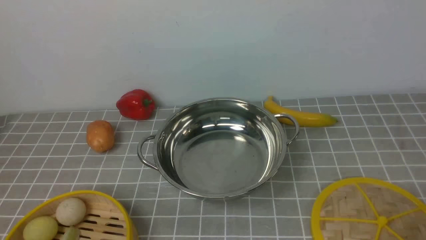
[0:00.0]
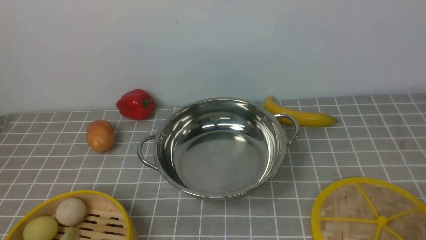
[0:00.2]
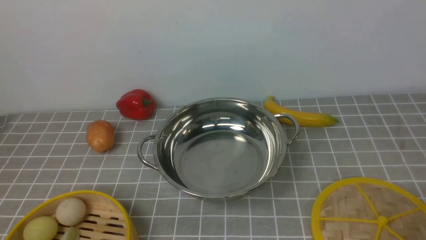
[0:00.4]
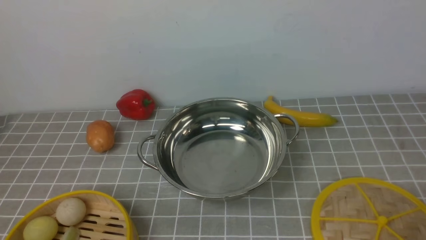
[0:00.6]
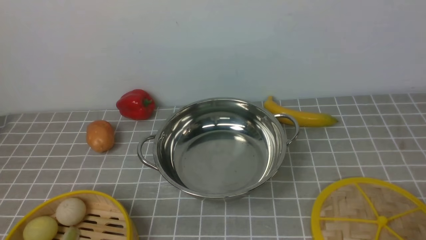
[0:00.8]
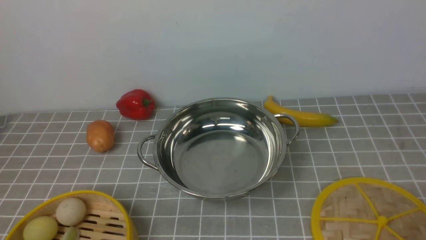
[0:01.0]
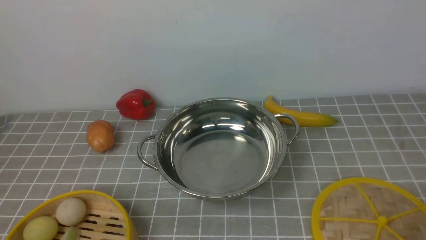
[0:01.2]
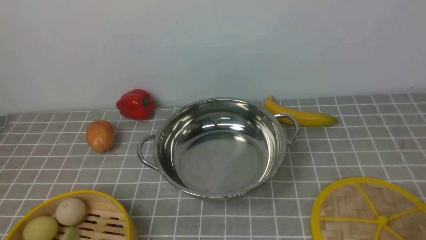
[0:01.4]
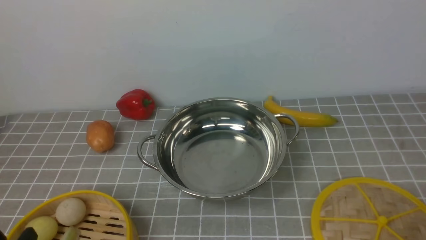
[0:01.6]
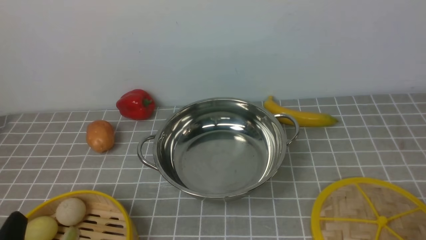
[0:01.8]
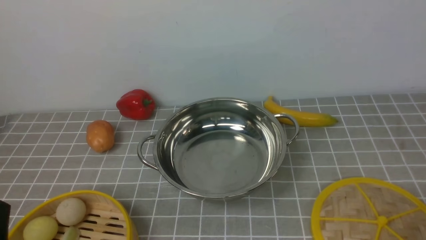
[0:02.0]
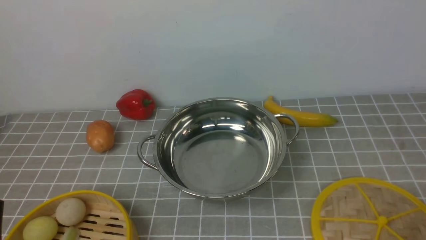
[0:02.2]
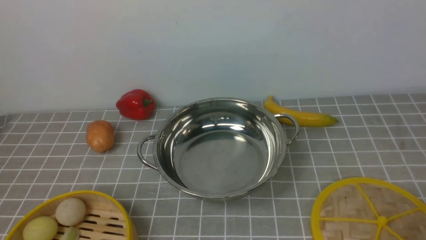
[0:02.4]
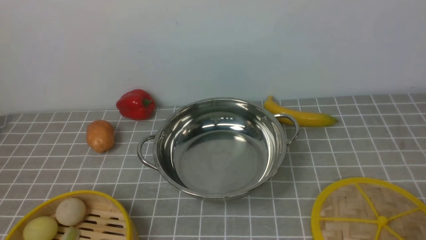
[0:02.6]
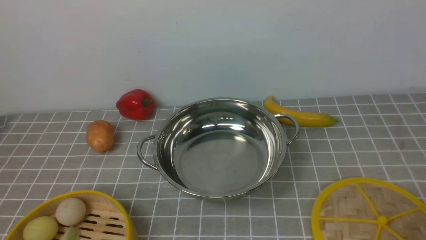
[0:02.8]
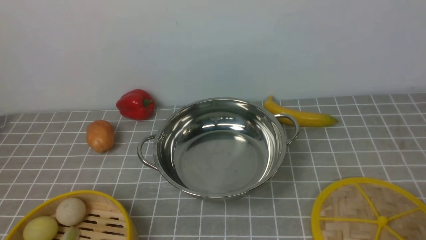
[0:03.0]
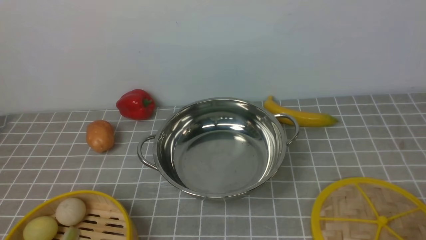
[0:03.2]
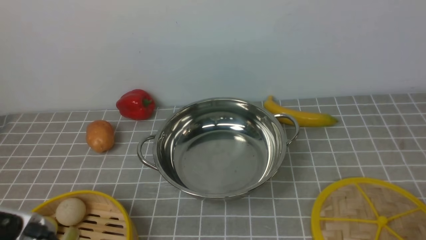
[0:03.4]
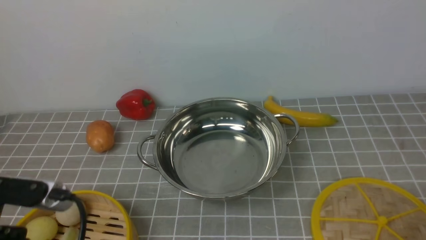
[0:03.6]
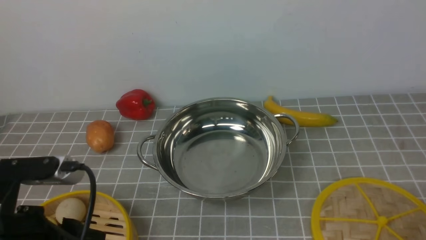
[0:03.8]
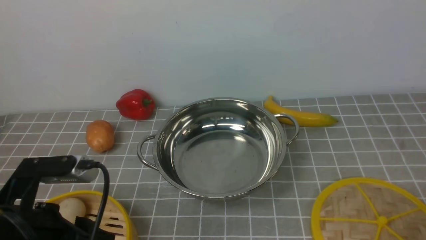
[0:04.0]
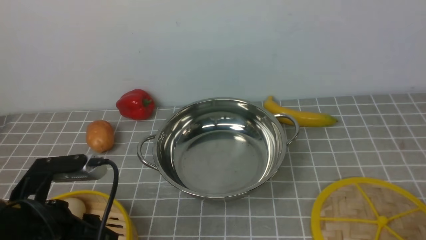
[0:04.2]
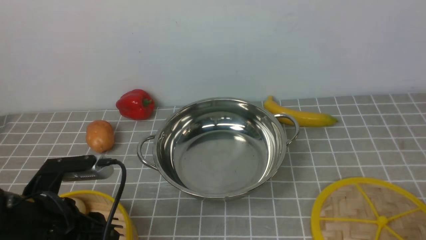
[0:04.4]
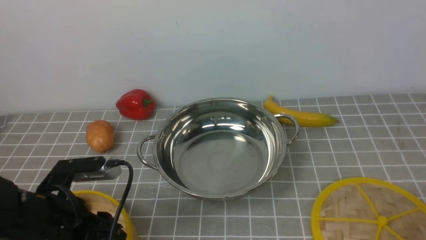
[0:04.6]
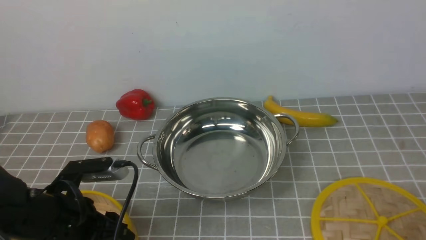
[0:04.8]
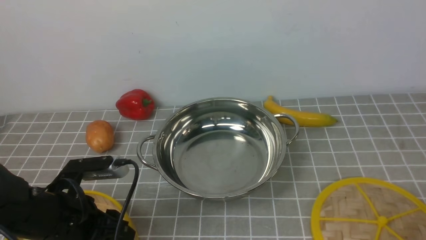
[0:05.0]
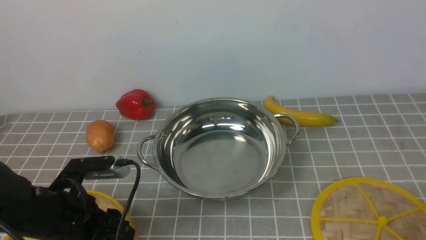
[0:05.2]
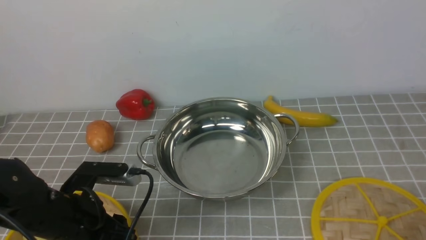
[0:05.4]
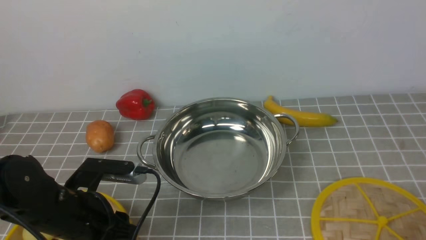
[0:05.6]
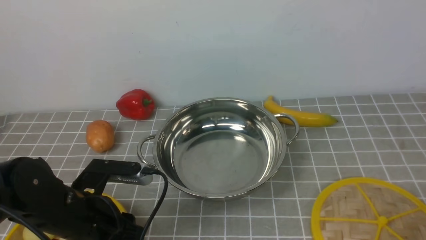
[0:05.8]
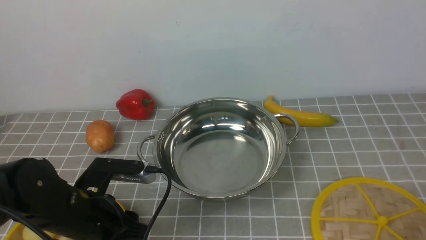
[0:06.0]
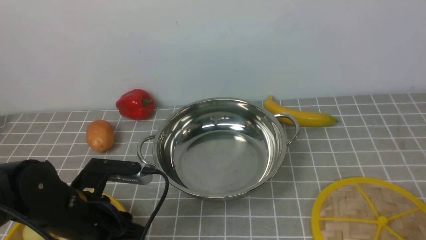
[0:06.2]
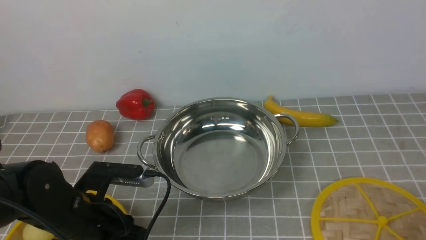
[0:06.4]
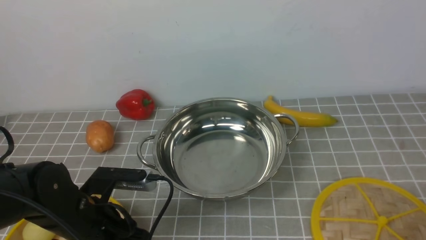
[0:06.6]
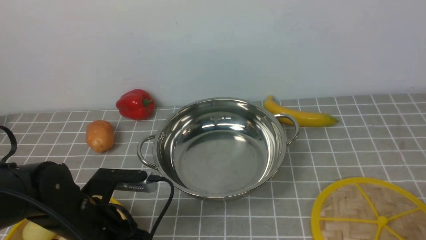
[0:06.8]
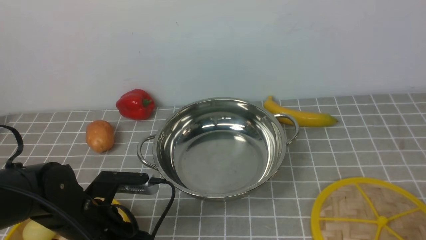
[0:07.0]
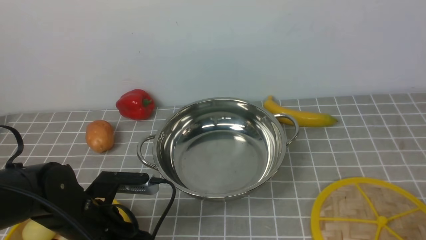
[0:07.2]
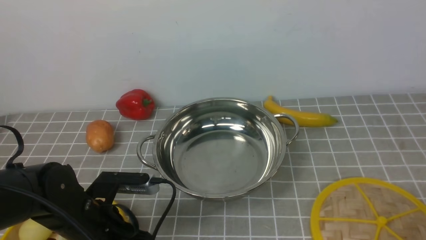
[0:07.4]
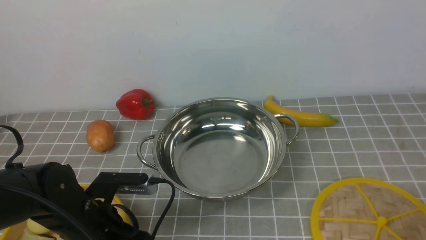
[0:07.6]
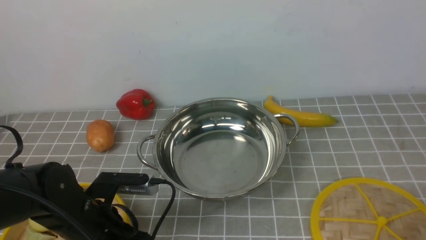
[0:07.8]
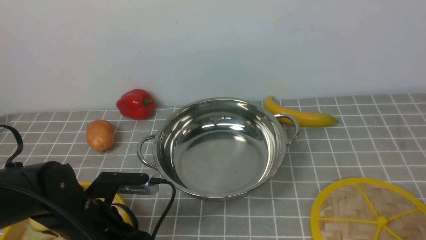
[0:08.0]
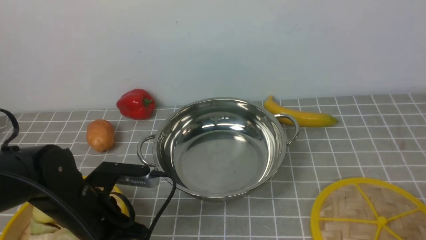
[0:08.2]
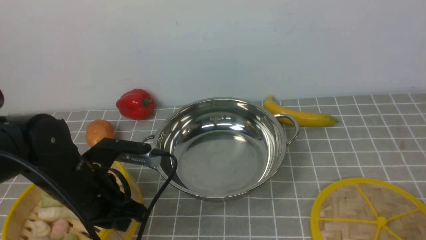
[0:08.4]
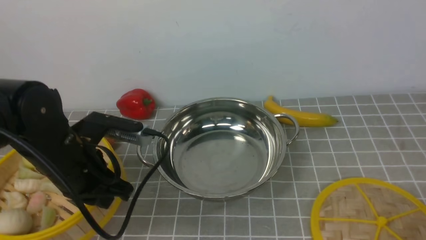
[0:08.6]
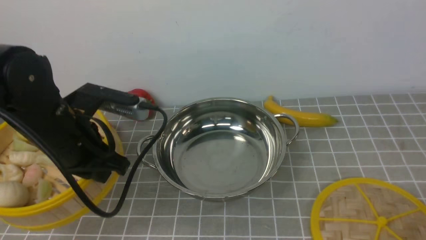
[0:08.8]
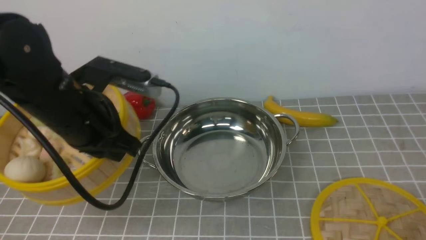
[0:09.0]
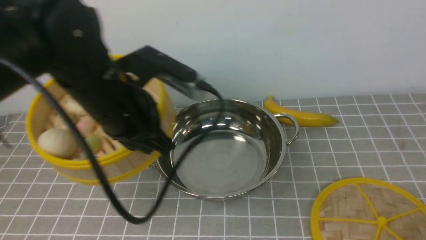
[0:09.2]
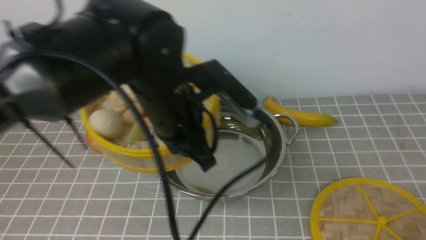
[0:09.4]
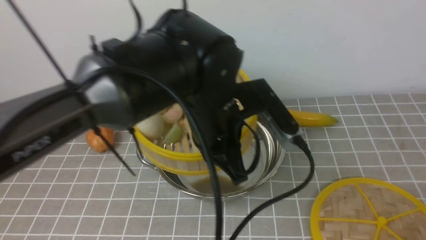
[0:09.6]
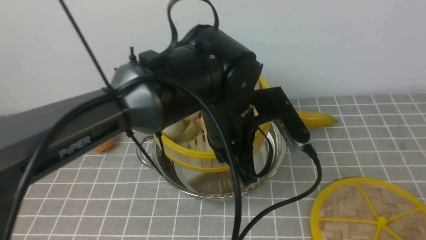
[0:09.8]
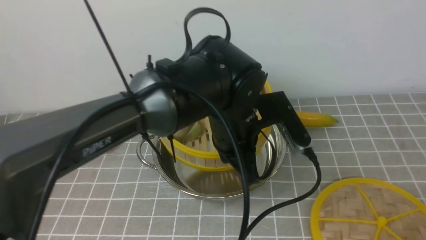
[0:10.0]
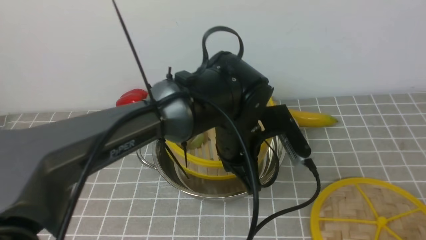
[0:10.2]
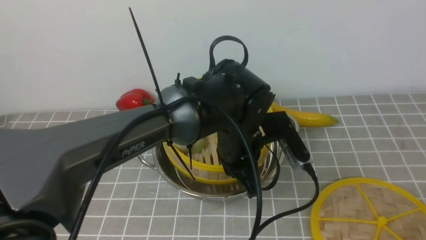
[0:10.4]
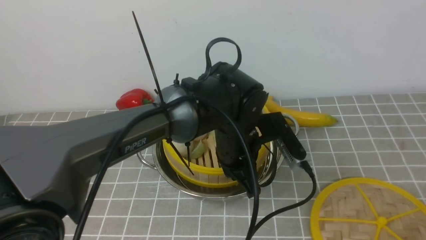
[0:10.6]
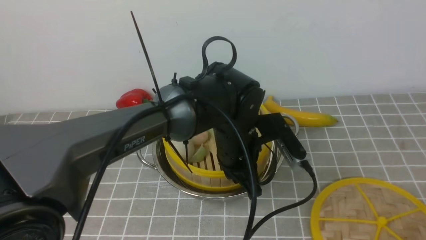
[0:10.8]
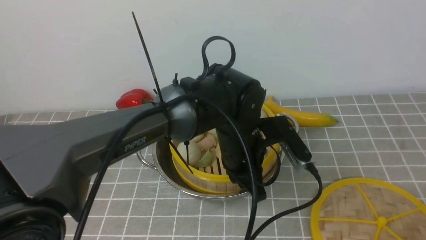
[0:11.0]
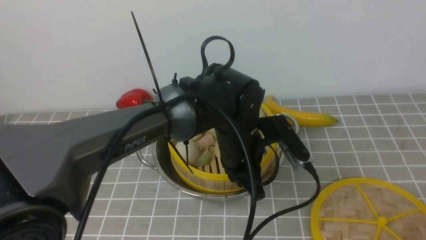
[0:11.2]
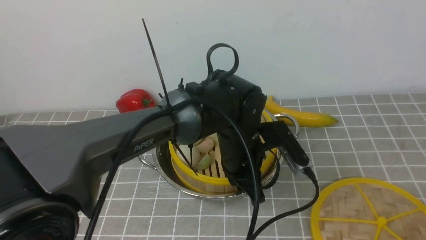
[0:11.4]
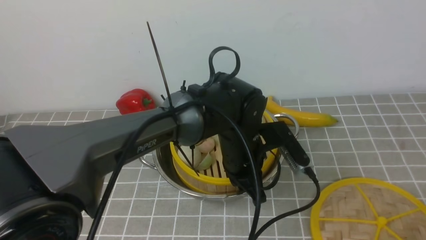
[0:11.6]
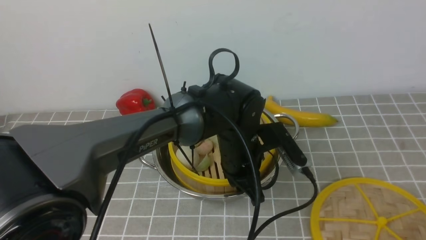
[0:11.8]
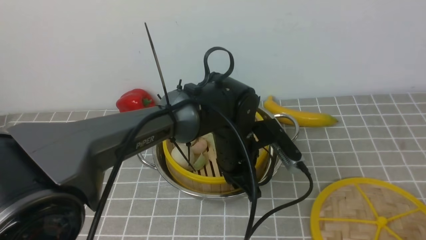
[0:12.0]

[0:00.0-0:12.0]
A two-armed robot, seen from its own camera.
Task of the whole recording: place the steamer in the pot on the grey tablecloth, and put the lid on the steamer.
Step, 0.0 to 8.4 s: use the left arm to lift the steamer closest to it.
3.0 to 4.4 s: The left gripper travels forward and downward by roughly 20 cm.
4.4 to 6.0 s: The left gripper ends up about 5 cm from where it was.
6.0 to 7.6 s: The left gripper closes up.
7.6 to 9.0 s: The left gripper goes approximately 15 cm upward.
9.0 to 10.4 s: The left gripper shifts roughly 20 cm to the right and downward.
10.4 to 12.0 s: The grippers make only small movements.

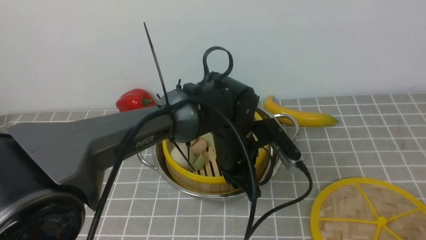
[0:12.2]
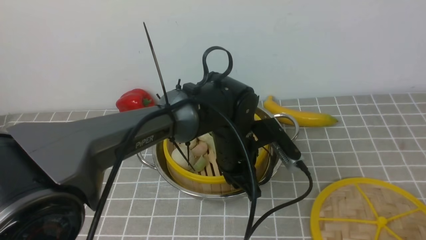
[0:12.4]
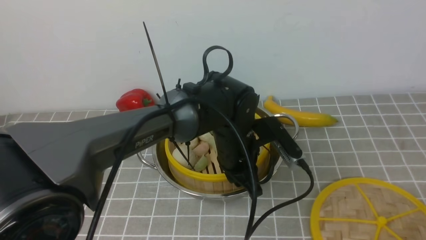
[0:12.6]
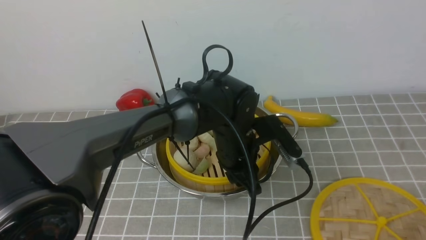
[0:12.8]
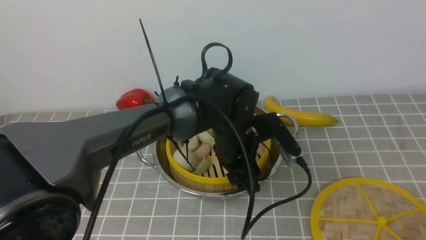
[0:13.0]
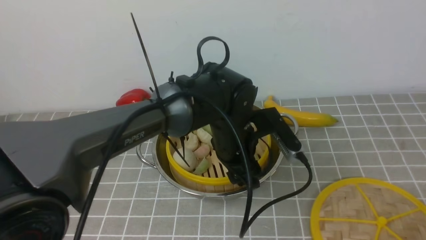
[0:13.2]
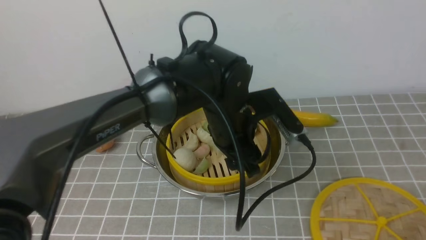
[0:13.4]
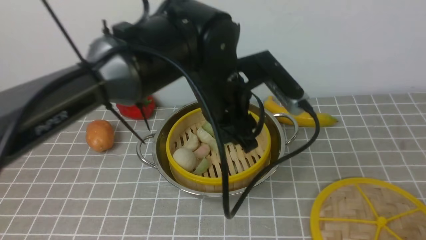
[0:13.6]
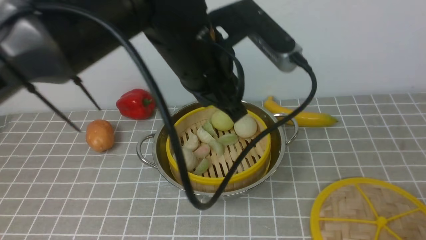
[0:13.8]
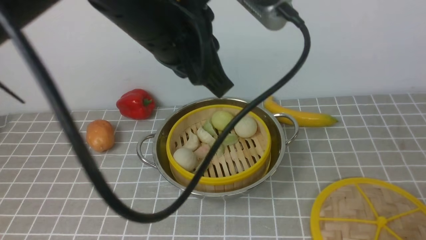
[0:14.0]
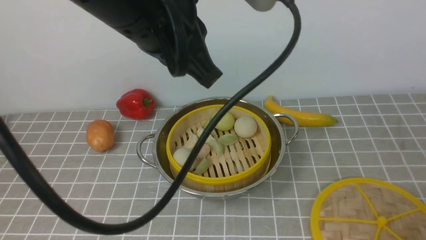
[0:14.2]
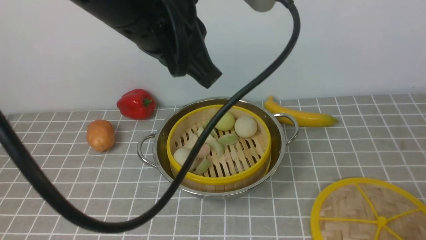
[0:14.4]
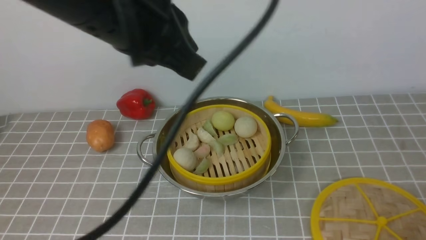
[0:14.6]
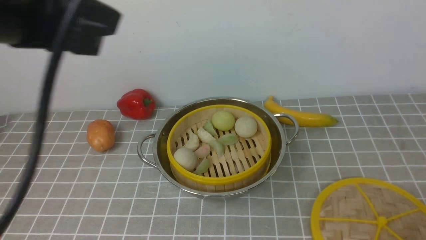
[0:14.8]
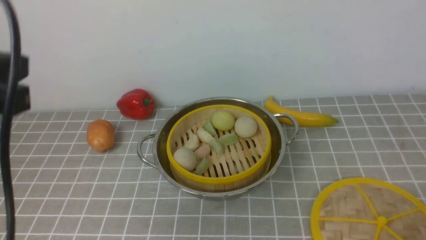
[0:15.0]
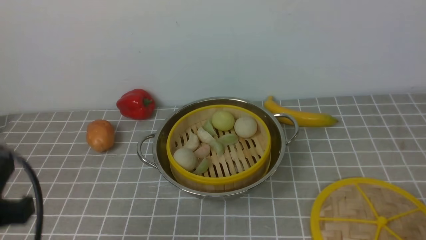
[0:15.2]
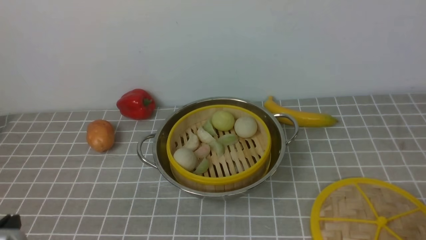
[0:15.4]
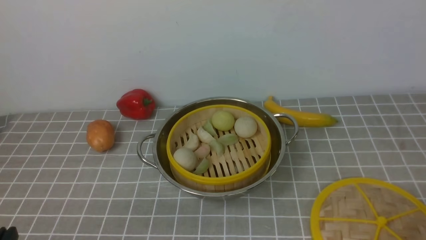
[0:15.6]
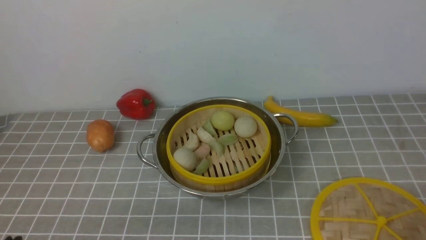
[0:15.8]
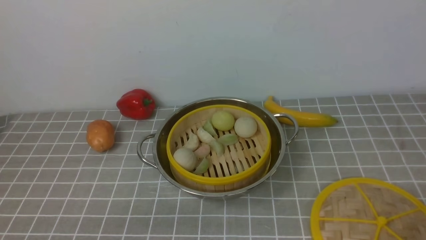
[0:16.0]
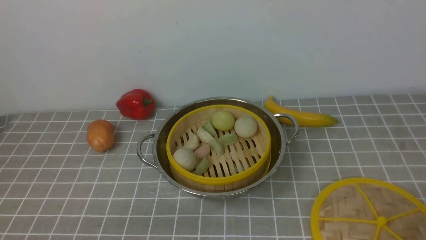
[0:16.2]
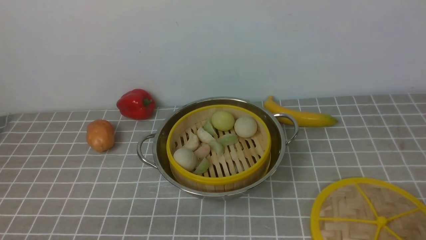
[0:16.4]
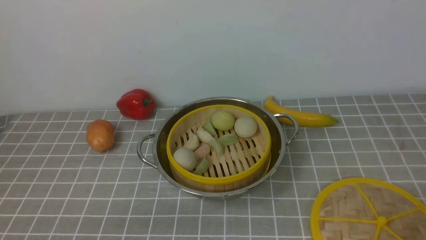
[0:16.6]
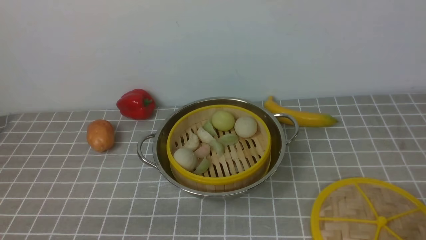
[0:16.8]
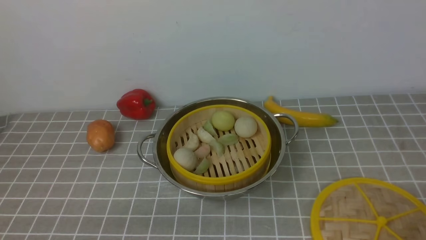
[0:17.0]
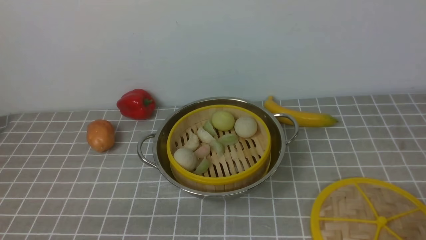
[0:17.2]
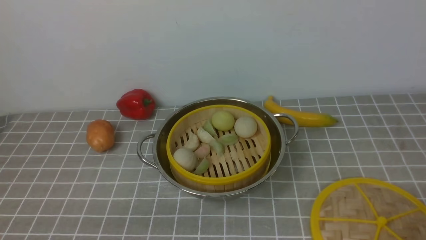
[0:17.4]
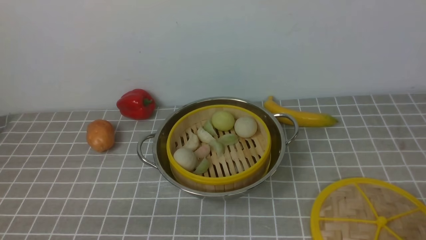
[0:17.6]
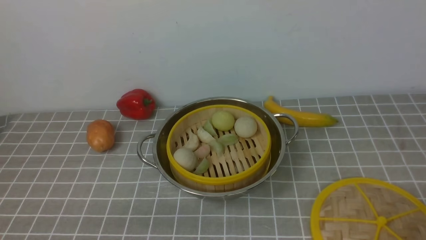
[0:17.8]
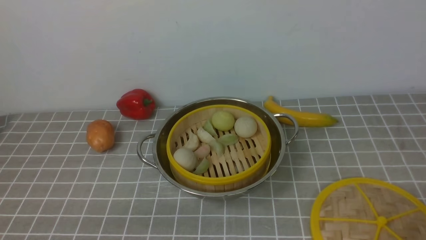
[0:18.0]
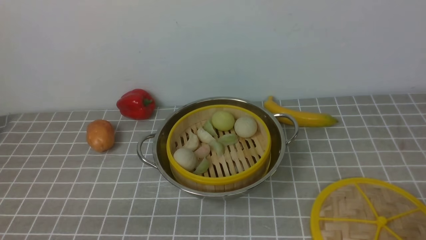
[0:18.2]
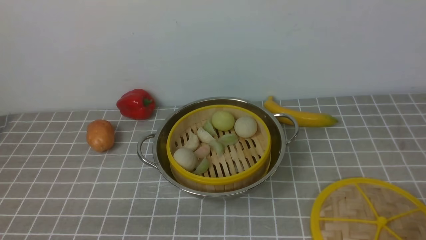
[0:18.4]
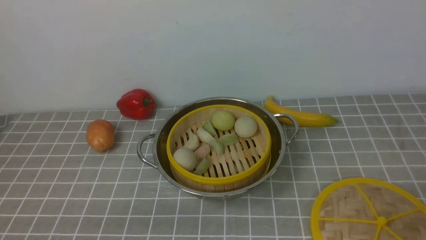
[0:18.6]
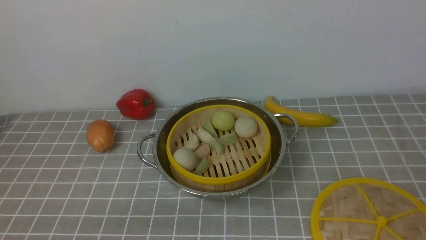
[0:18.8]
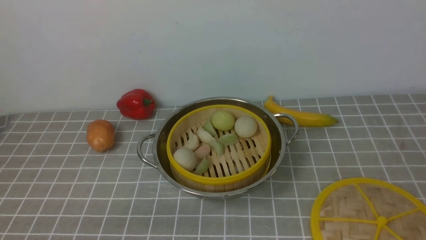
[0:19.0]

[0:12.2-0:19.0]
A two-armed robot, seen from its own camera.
Task of the whole recording: place the steamer in the pot on the grey tablecloth, and put the lid on the steamer.
12.2 to 13.6 s: The left gripper travels upward by roughly 15 cm, and opens up.
13.6 to 15.0 s: The left gripper travels to the left and backward by some 25 cm, and closes.
15.0 to 16.2 s: The left gripper moves downward and backward, about 25 cm.
